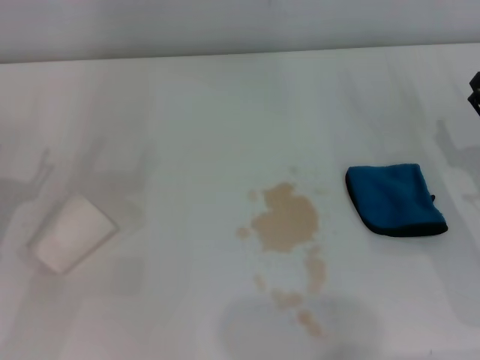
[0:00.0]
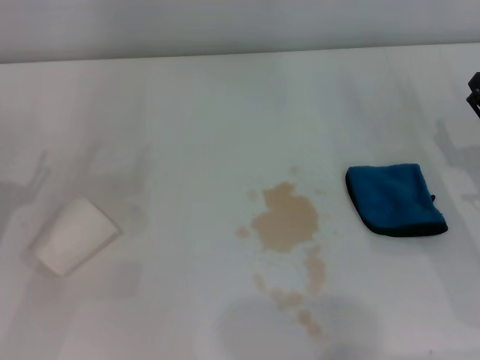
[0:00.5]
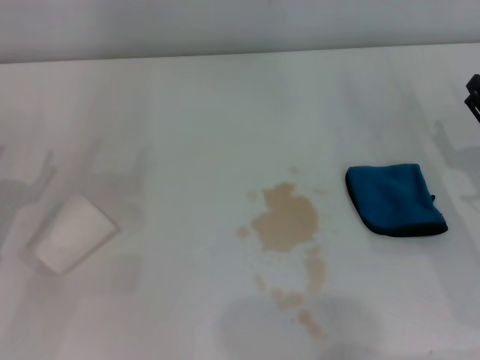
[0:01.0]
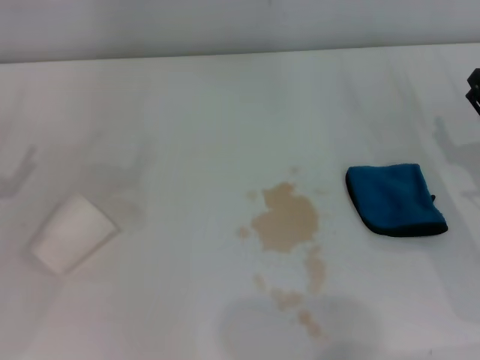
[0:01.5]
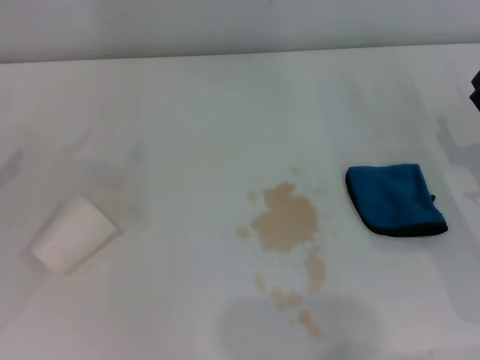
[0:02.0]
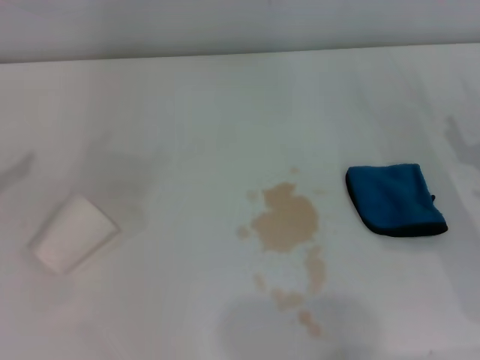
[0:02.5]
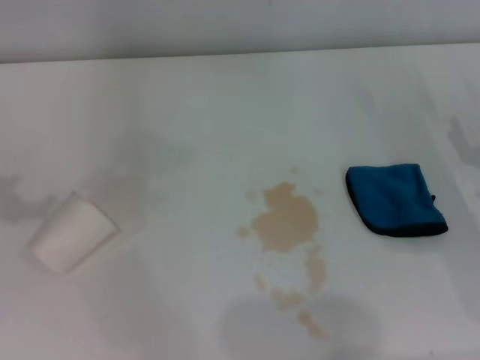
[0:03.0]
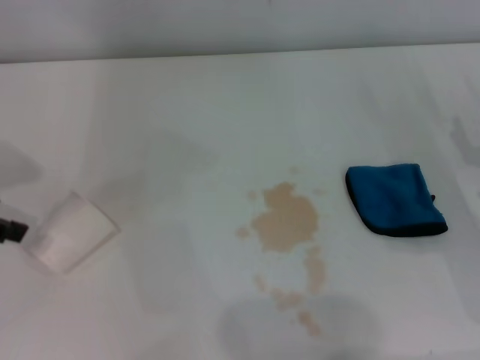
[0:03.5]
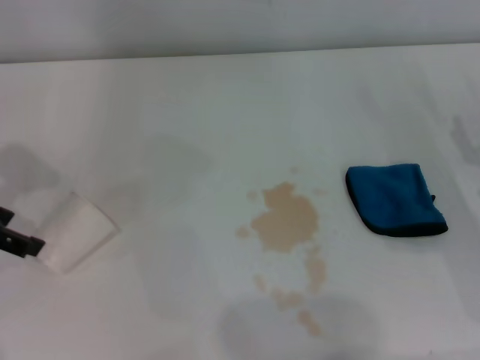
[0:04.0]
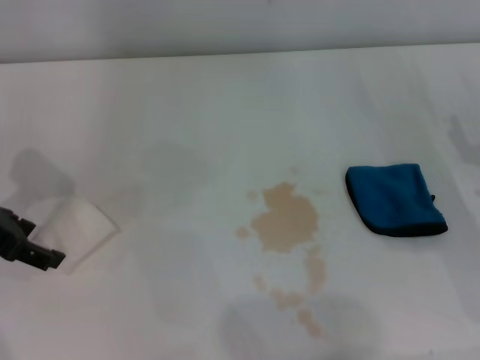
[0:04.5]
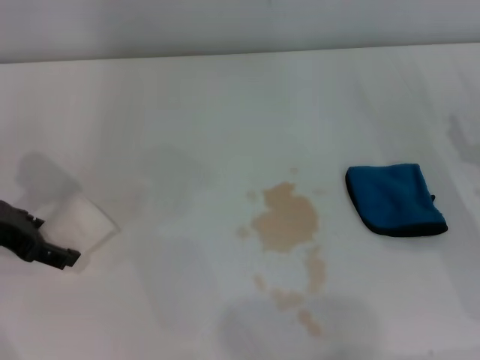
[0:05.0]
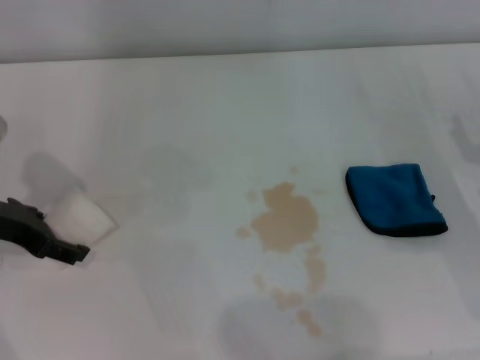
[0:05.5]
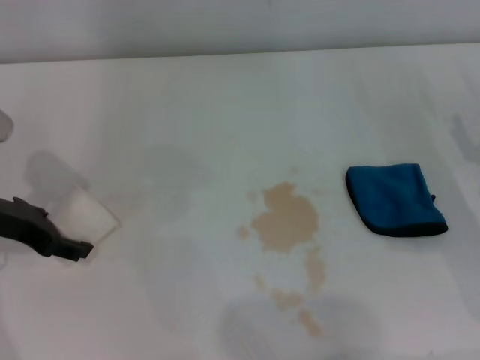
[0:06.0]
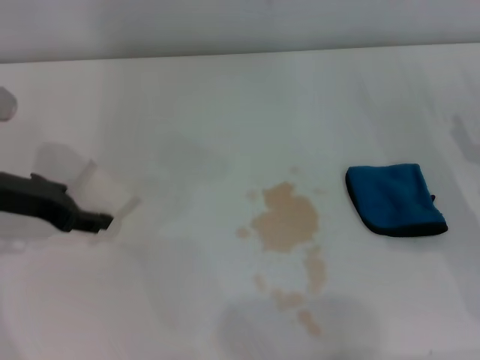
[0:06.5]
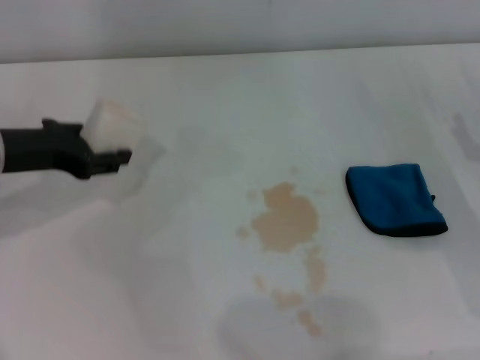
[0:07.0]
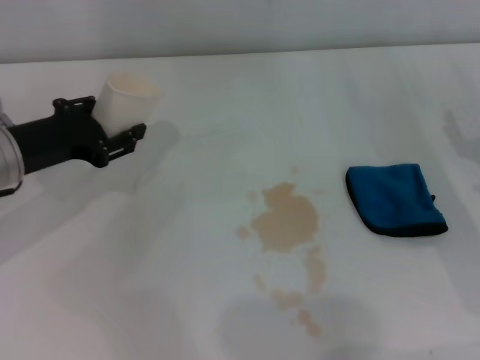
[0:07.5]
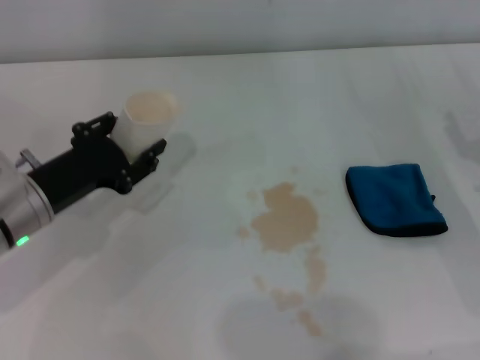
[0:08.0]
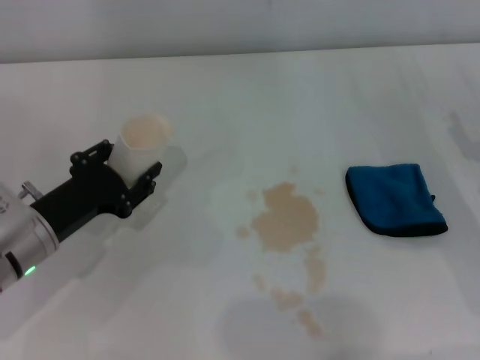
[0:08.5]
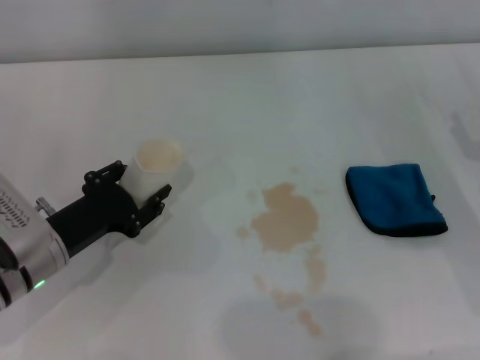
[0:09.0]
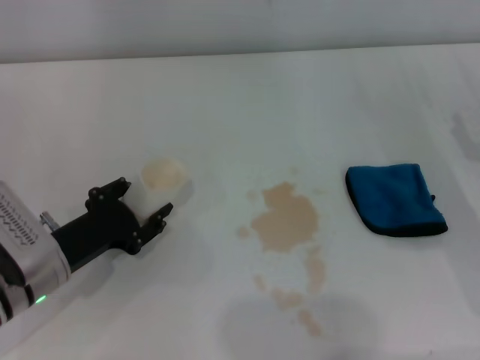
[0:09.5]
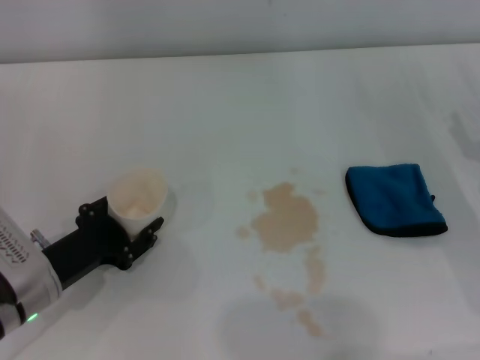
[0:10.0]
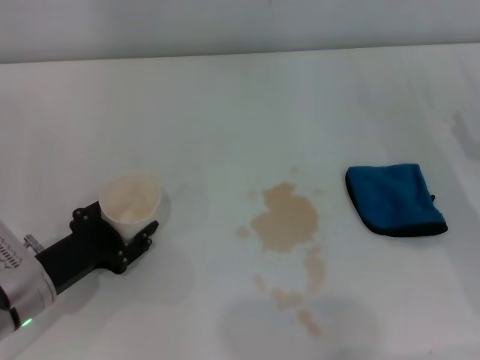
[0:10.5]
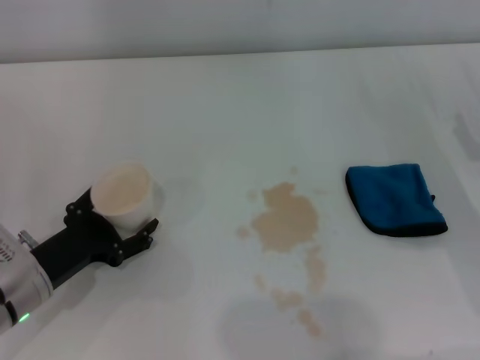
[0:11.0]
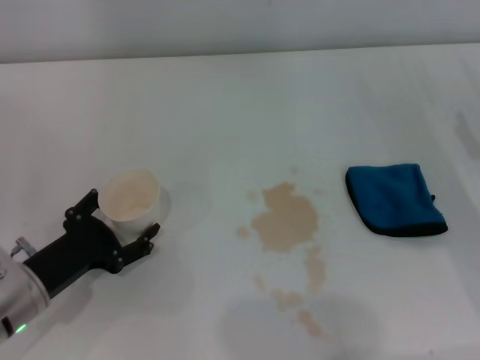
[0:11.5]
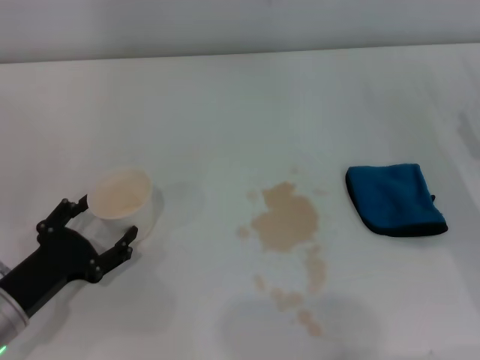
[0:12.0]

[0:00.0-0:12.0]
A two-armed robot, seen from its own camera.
Step, 0.0 to 6.0 s: Grasp the paper cup with the left gripper.
Step, 6.5 to 12.0 s: Stand the paper cup upright with the left gripper.
2.0 to 4.0 s: The left gripper is displaced to the right and forward by roughly 10 cm.
4.0 to 6.0 s: The left gripper travels downward by roughly 5 cm.
6.0 to 8.0 s: The left gripper goes roughly 5 cm downward, and closes its fingers.
8.0 to 10.0 s: The left gripper shifts about 10 cm downward and backward.
10.0 to 12.0 s: The left gripper opens its fingers.

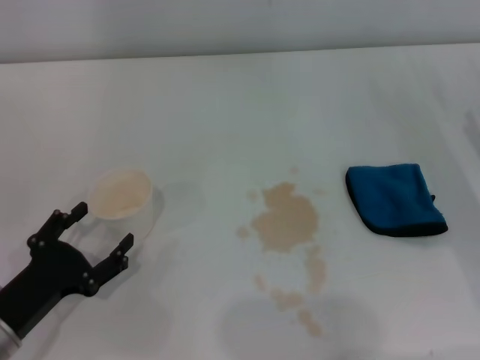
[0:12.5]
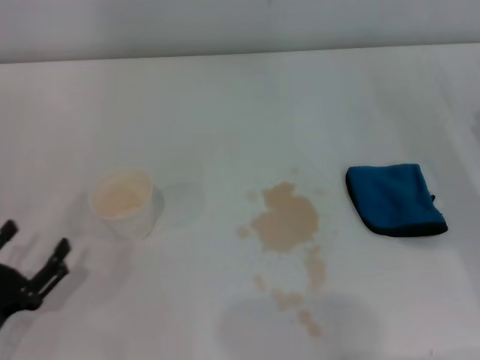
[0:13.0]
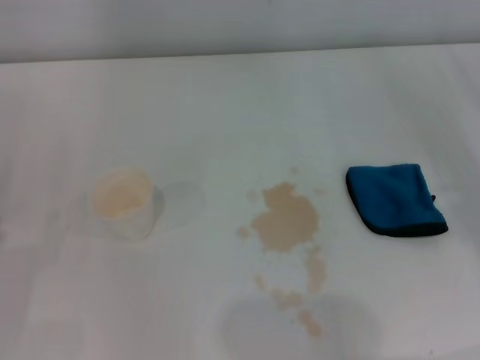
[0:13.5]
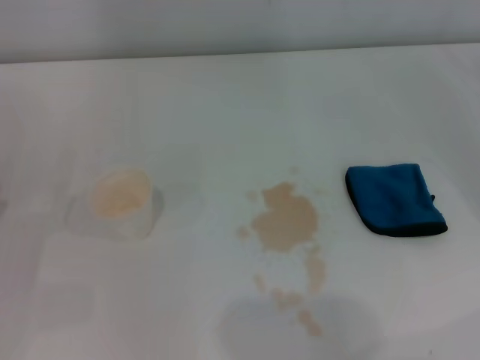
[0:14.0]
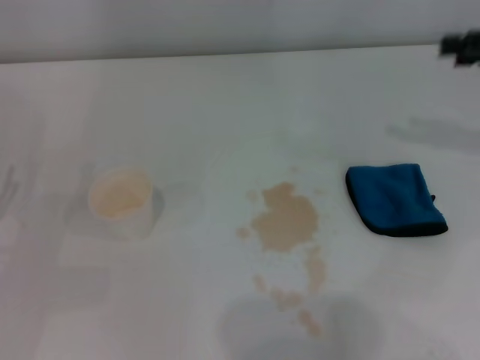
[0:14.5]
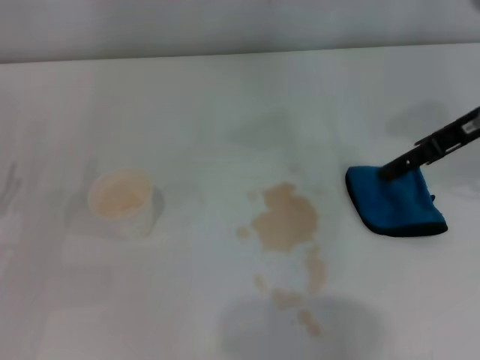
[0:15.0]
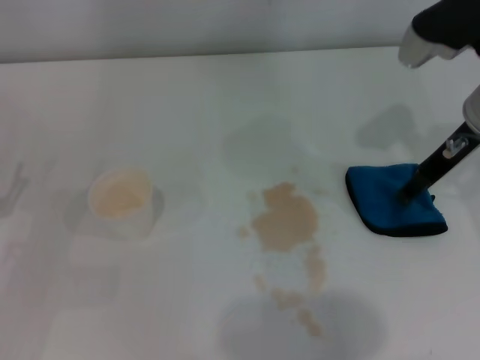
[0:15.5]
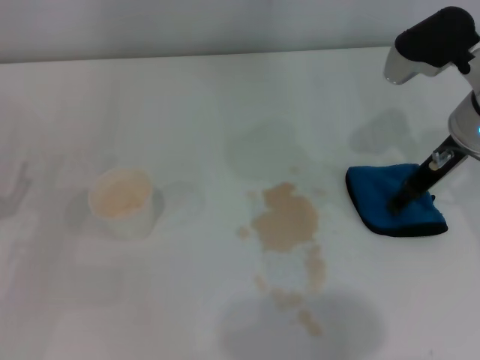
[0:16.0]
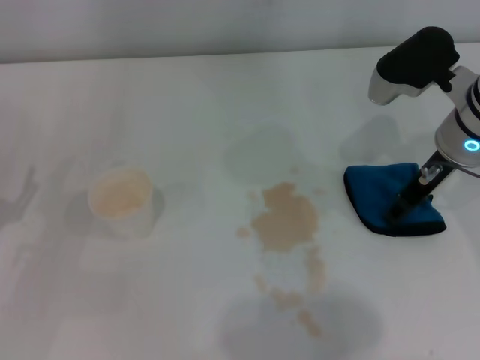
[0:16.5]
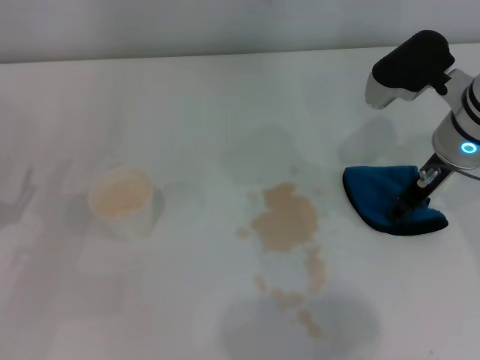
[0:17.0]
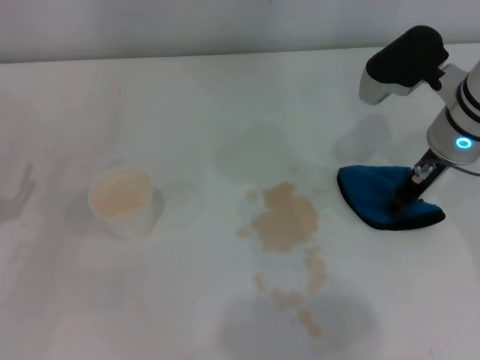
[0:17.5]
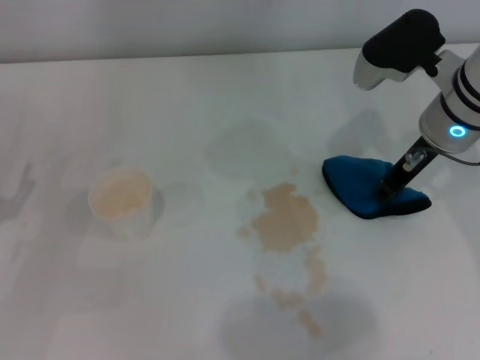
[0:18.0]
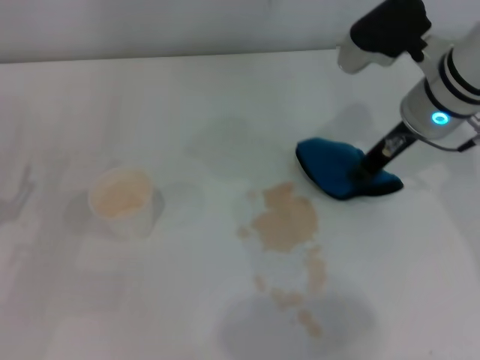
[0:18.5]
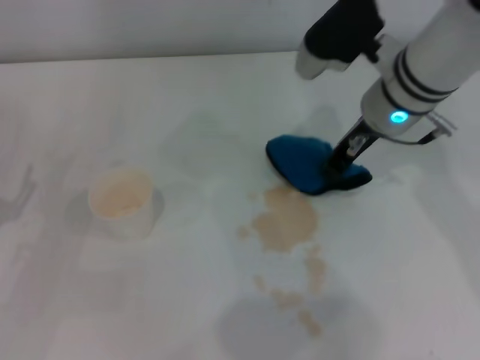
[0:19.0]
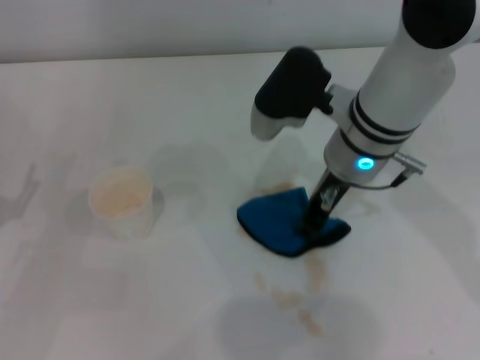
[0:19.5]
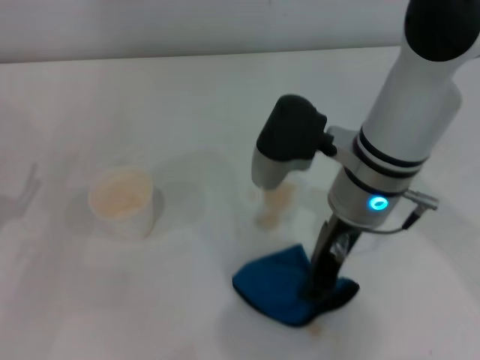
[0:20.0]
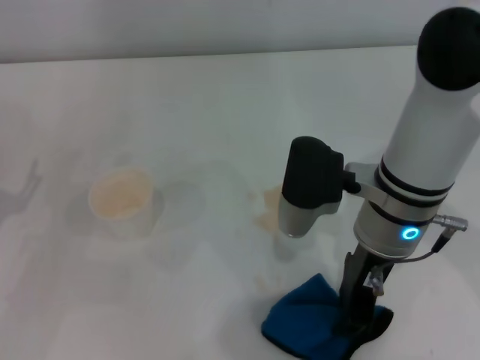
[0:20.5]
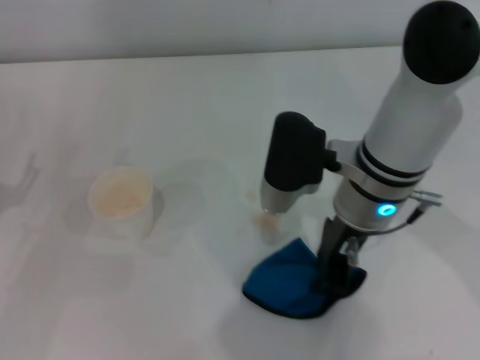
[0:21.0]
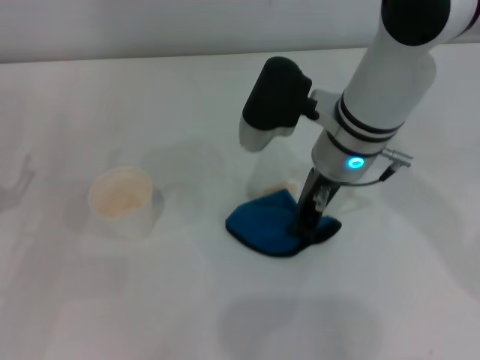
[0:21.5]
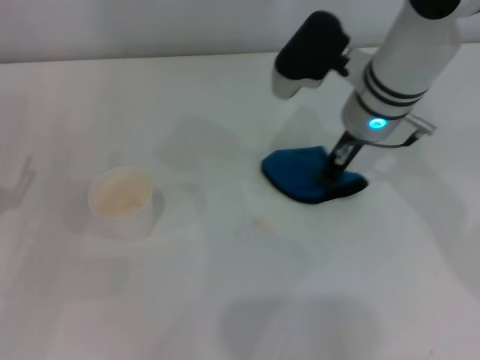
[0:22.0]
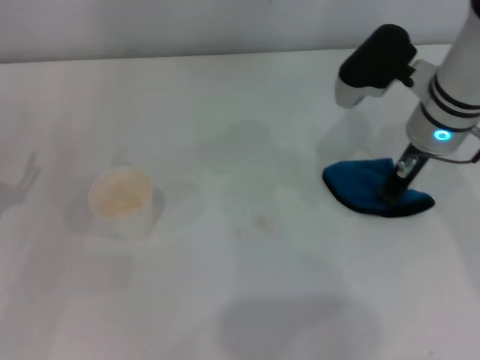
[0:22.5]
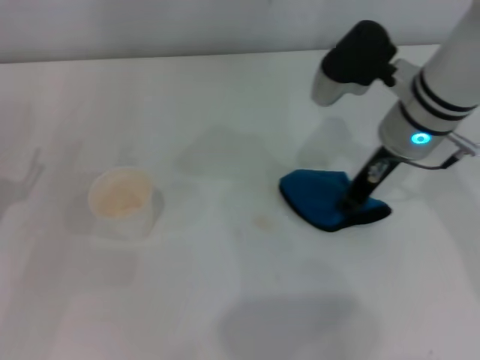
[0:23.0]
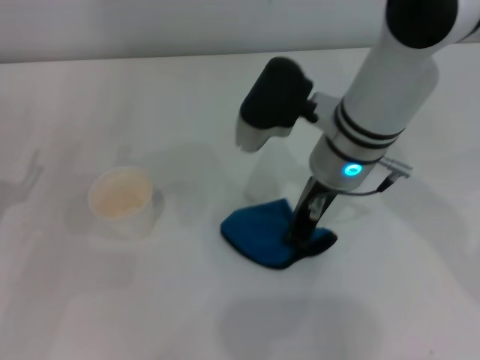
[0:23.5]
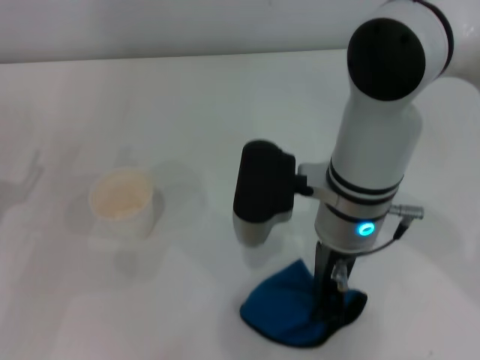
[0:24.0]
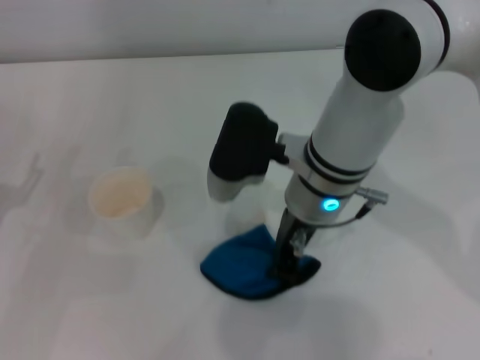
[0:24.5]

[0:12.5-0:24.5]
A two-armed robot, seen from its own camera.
Step, 12.5 to 17.0 s: Grasp the rag with the right gripper.
12.5 to 14.5 s: The left gripper shifts approximately 5 cm to the left. Meanwhile the right gripper heads upward and forward, covering some 20 cm.
14.5 to 16.5 s: The right gripper is displaced to the left and downward by approximately 15 cm.
16.5 to 18.5 s: The right gripper closes.
18.5 to 20.5 s: The right gripper shifts about 10 cm backward and to the left.
20.5 to 22.5 s: The right gripper travels forward and to the right by some 10 cm.
22.5 to 24.5 s: The right gripper goes about 15 cm to the left.

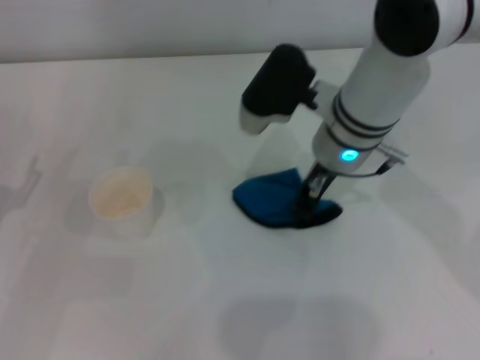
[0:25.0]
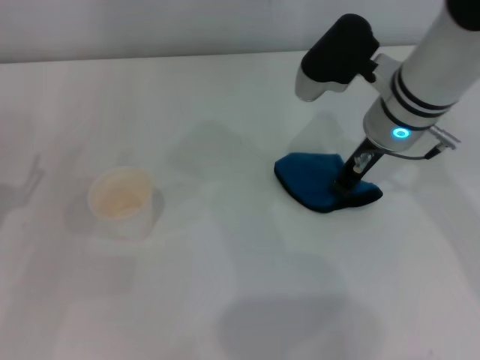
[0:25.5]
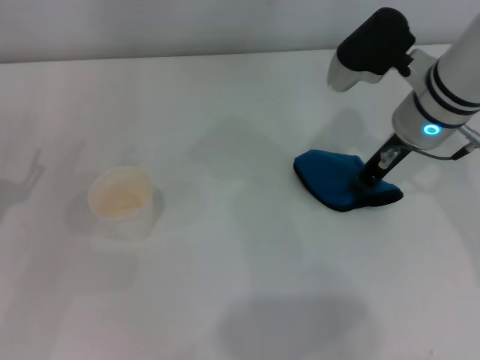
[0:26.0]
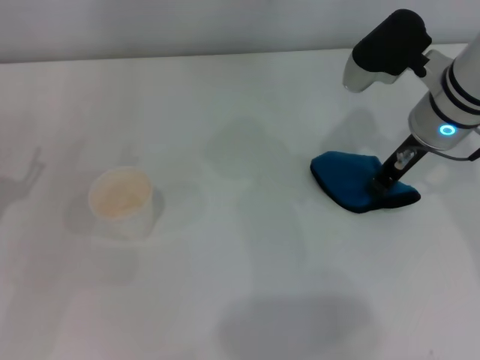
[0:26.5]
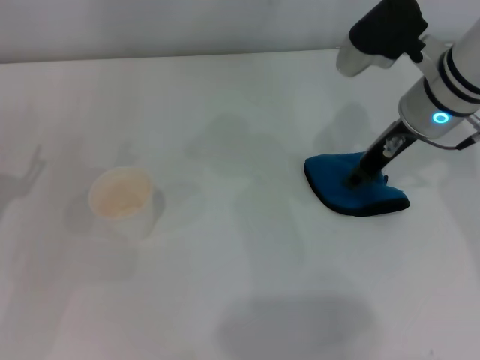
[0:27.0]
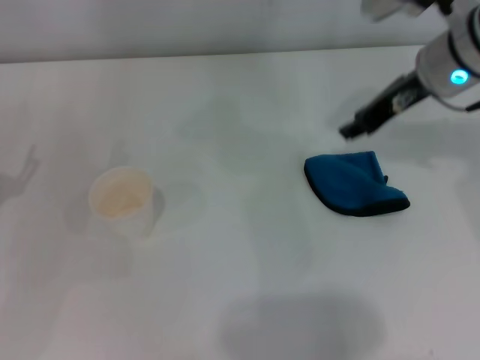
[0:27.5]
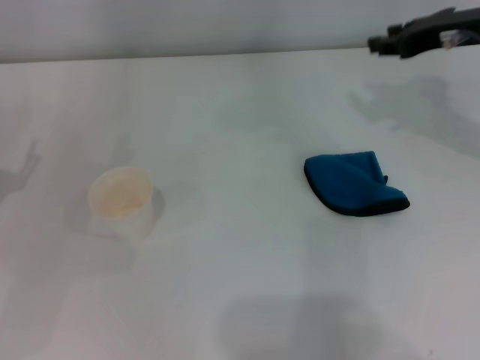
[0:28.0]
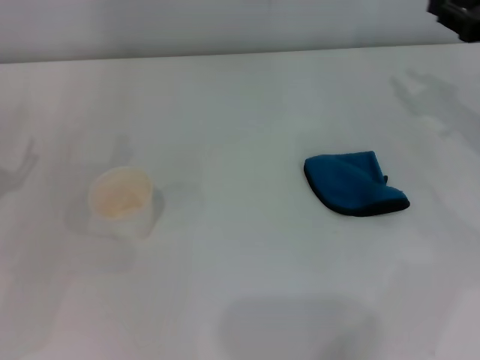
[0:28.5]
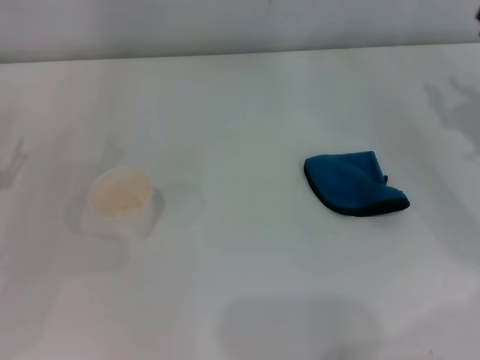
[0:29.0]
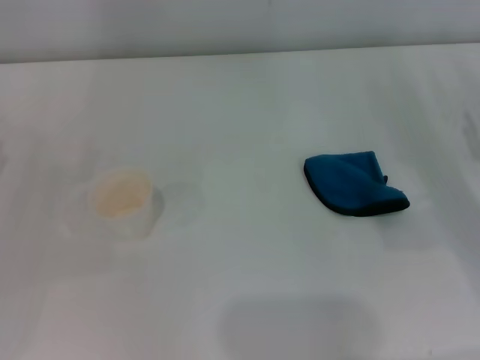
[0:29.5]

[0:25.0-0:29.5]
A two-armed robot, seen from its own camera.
25.0 to 27.0 s: The right gripper moves to the right, roughly 10 cm.
27.0 to 29.5 s: The right gripper travels to the right, backward and downward by roughly 25 cm.
